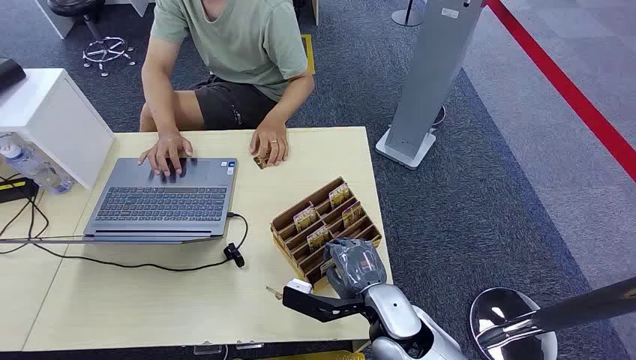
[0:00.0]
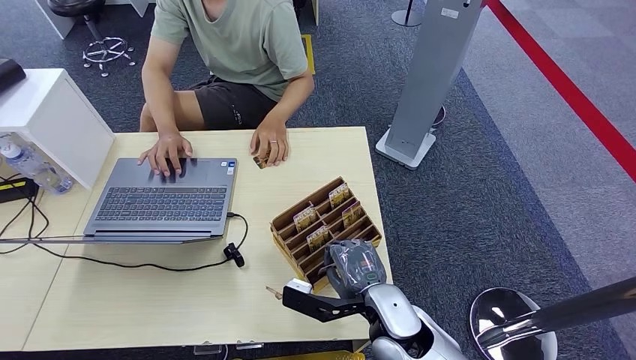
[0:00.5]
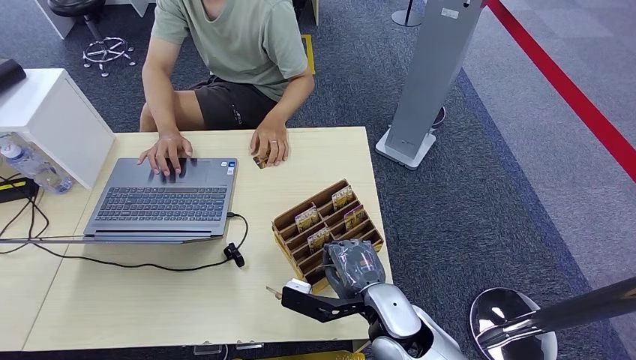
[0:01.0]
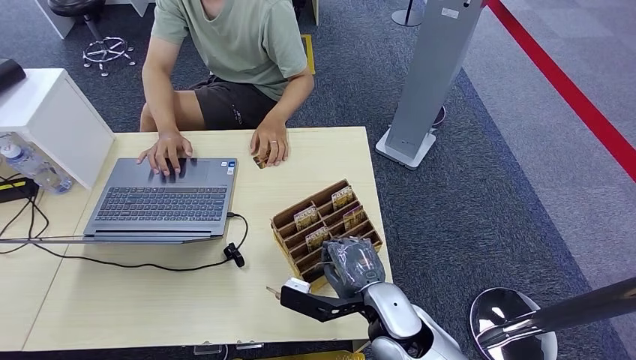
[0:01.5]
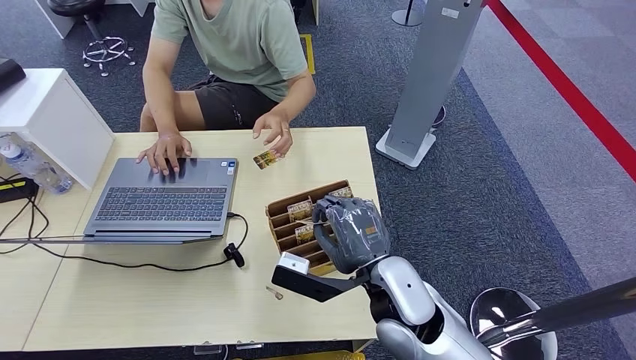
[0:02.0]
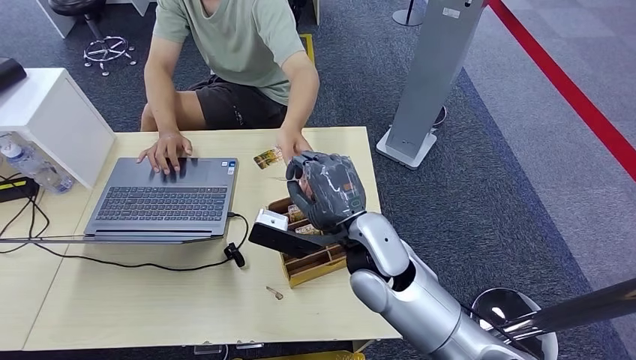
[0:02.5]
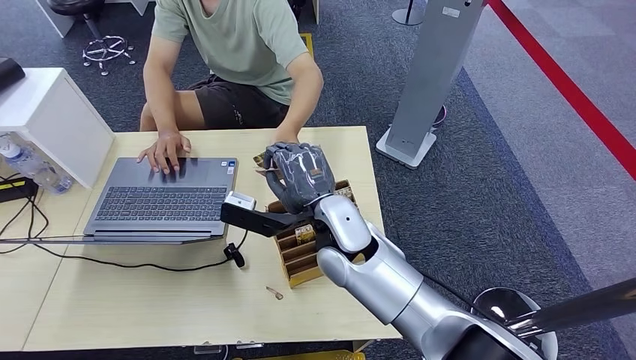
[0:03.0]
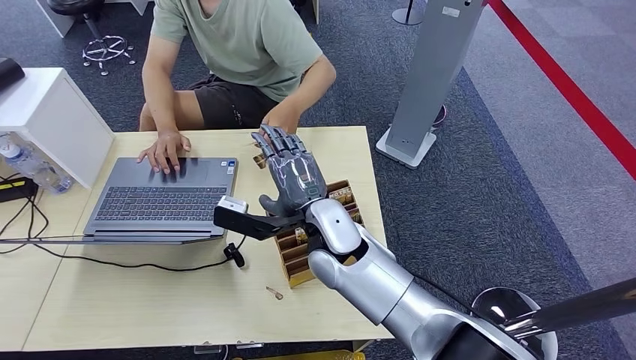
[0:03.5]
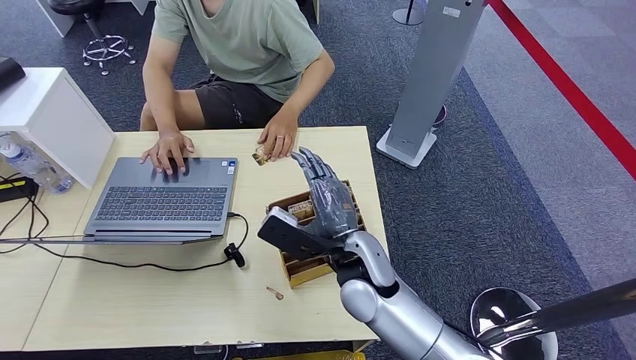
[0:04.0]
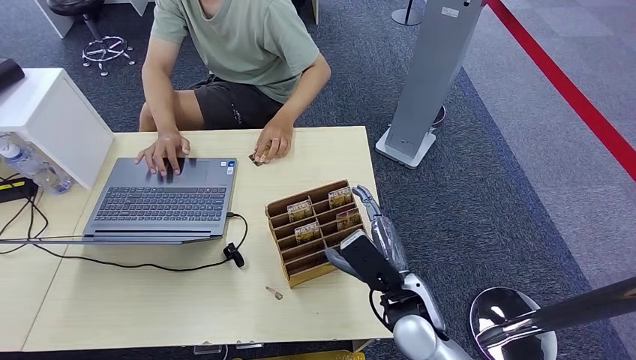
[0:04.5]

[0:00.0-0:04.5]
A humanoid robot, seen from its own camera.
Step, 0:00.0 to 0:02.0: Pick up the room card from the card holder.
Step, 0:02.5 to 0:04.5: Hand the room card to the target.
0:02.0 to 0:04.5: The right hand goes about 5 cm downward, and reaches some 10 cm to the left, then returns.
